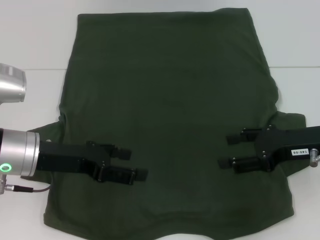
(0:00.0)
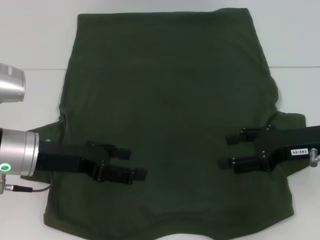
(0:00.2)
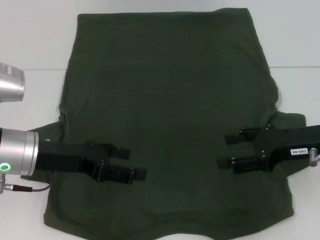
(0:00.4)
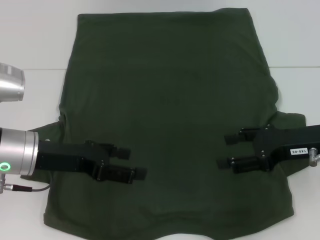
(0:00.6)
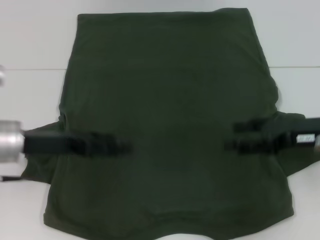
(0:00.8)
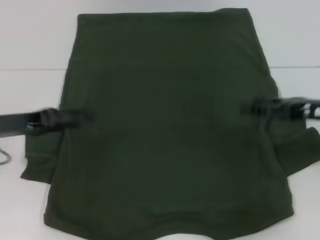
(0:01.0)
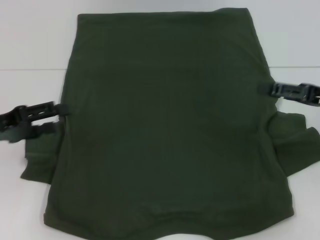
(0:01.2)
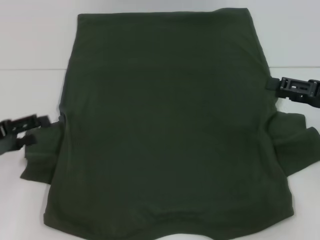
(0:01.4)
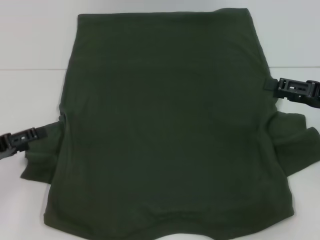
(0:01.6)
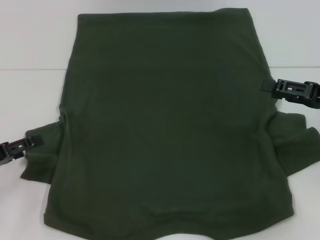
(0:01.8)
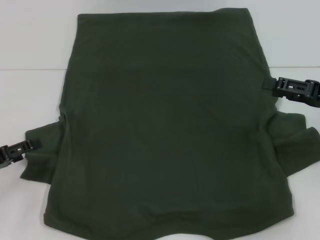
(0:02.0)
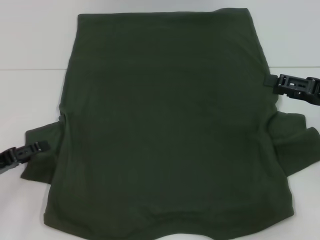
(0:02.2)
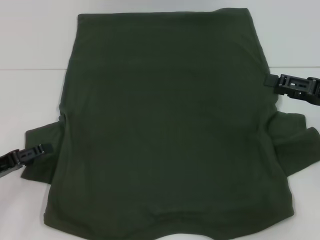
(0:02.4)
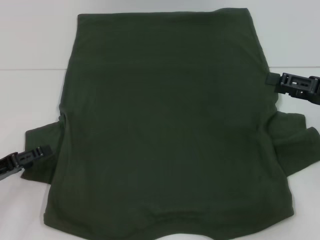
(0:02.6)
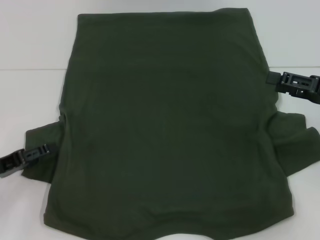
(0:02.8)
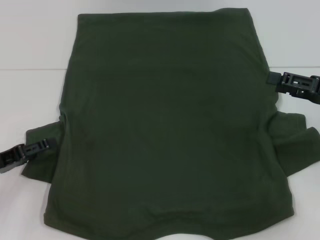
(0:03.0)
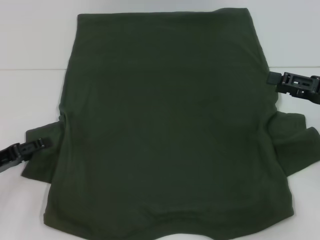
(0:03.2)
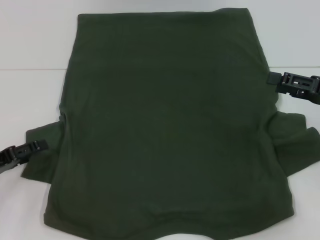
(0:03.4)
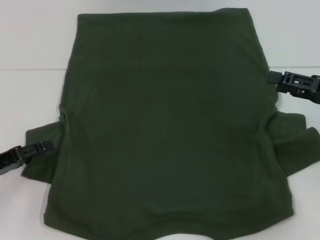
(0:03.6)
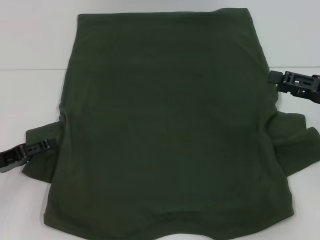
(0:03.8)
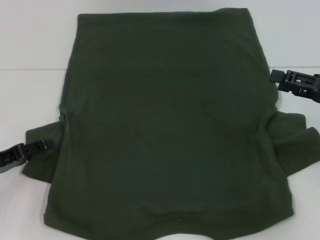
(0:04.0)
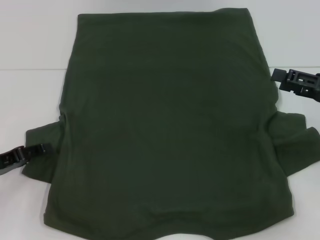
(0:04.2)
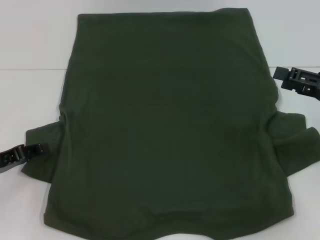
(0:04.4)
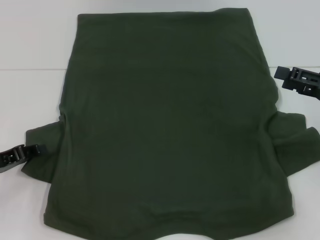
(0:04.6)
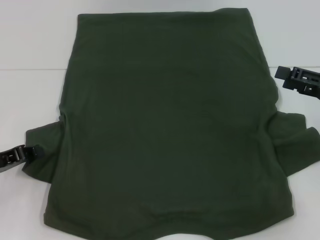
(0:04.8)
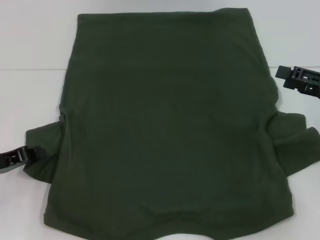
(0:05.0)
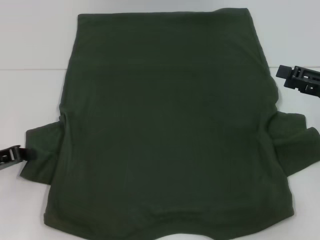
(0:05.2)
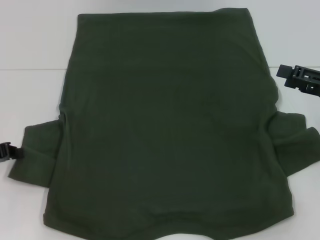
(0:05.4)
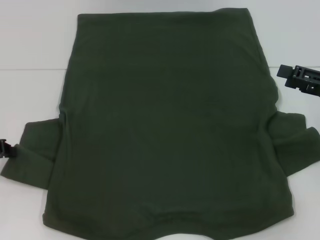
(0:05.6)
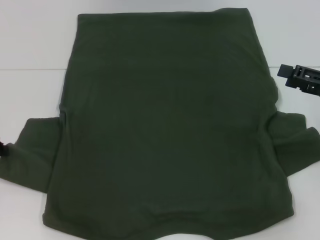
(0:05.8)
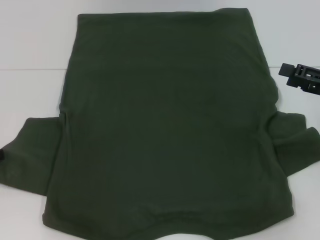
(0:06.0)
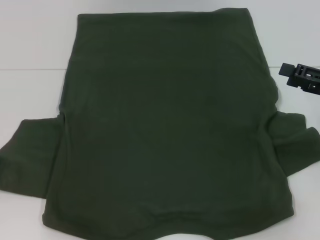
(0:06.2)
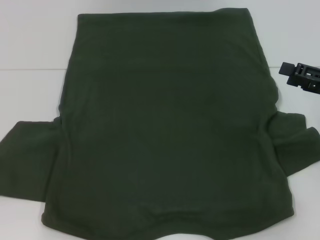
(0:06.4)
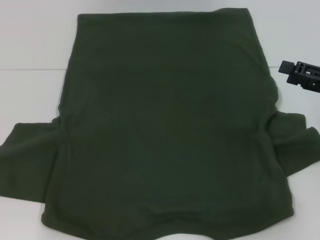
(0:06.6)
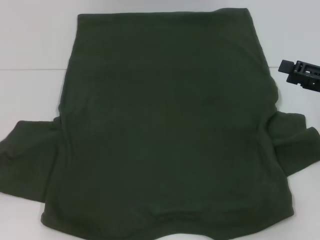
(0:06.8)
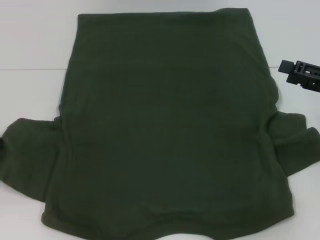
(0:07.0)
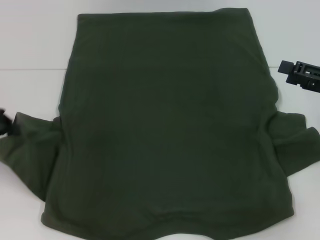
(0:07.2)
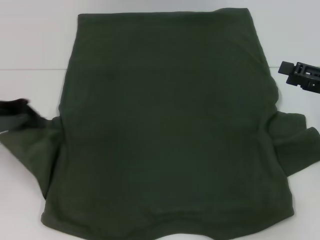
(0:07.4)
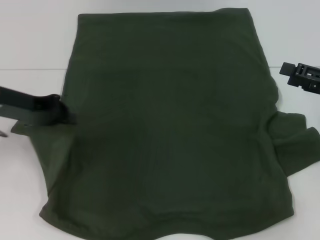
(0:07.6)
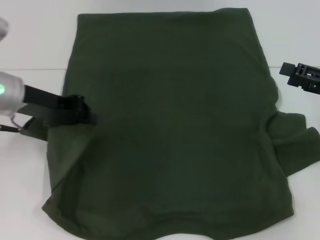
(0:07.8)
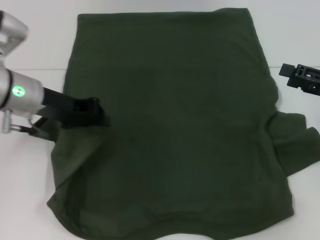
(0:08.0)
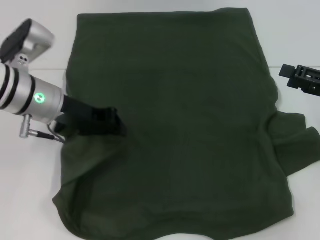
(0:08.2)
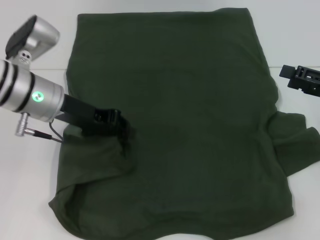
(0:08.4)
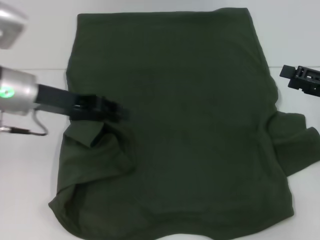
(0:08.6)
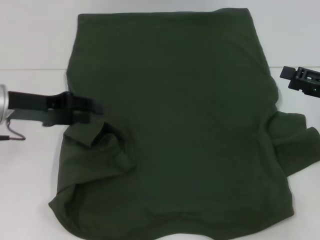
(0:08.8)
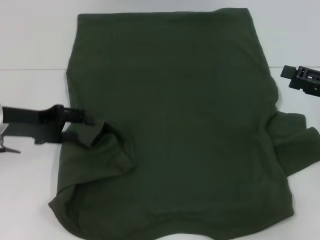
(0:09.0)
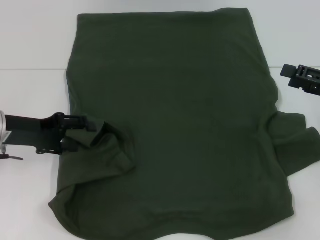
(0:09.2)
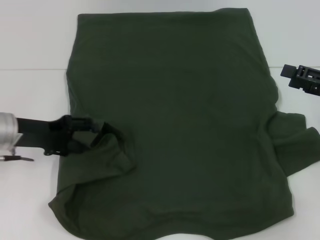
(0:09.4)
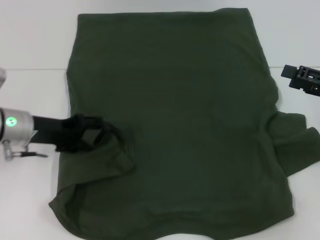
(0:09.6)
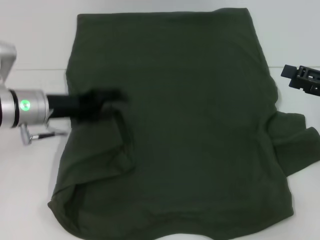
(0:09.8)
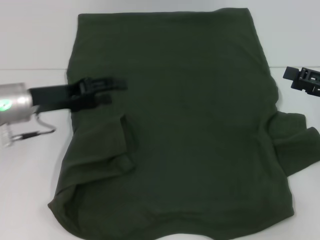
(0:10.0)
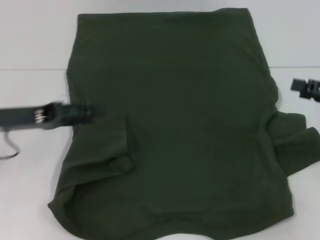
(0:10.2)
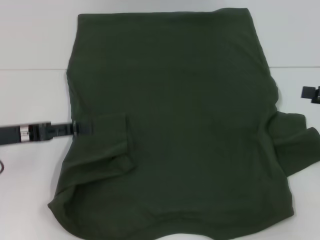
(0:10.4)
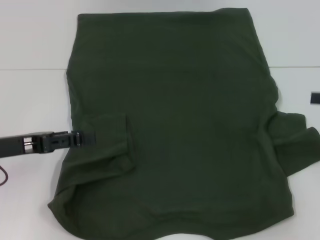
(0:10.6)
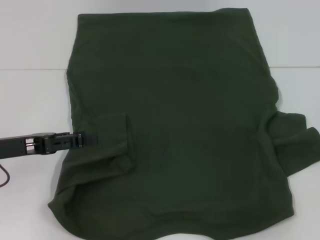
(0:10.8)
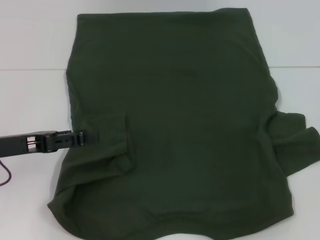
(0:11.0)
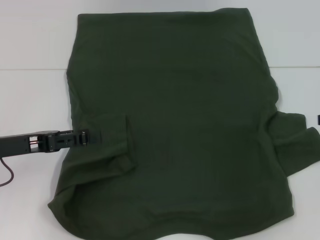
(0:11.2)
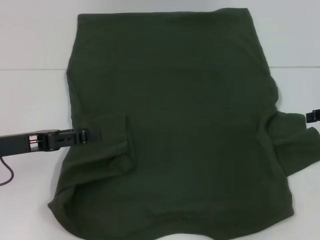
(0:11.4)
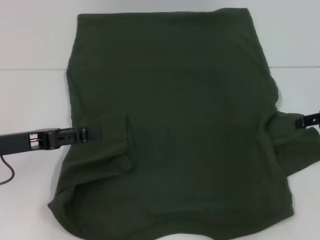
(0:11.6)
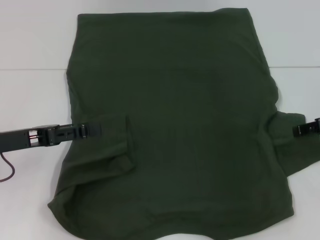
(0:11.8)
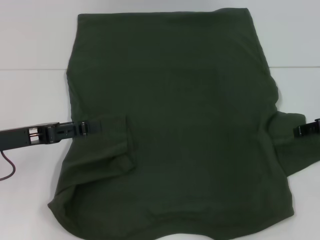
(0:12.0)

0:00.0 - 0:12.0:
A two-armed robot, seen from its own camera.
Step, 0:00.0 - 0:09.8: Fold the bottom left sleeve with your left hand.
0:00.0 - 0:01.6: The left gripper heads to the left, covering some 15 cm. The right gripper is displaced to the right by about 5 cm.
0:01.6 - 0:03.0: The grippers stay close to where they were, moving slightly.
0:03.0 - 0:04.4: Both grippers stay put.
0:04.4 - 0:06.0: The left gripper moves upward, roughly 5 cm, and closes.
0:06.0 - 0:07.6: The left gripper heads to the right and upward, covering some 10 cm.
0:07.6 - 0:09.0: The left gripper travels downward by about 5 cm, goes to the right and returns, roughly 5 cm each way, and opens up.
0:09.0 - 0:10.4: The left gripper changes place by roughly 5 cm.
0:10.4 - 0:12.0: The right gripper changes place by approximately 5 cm.

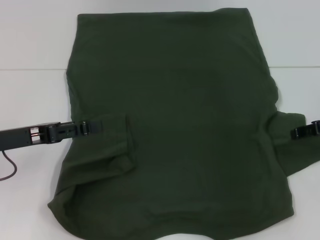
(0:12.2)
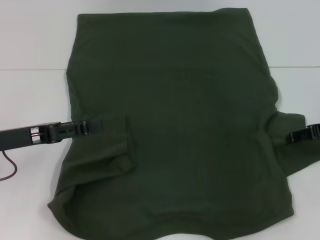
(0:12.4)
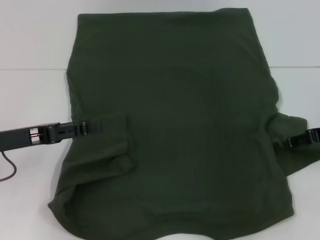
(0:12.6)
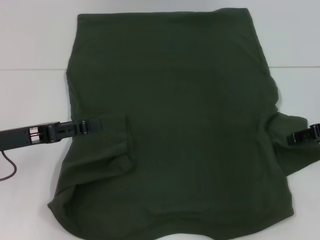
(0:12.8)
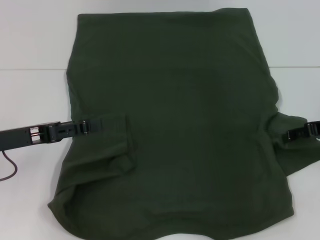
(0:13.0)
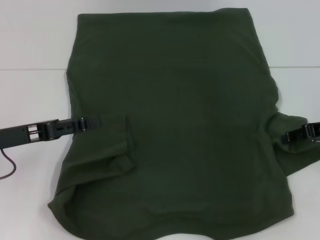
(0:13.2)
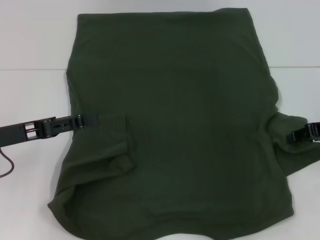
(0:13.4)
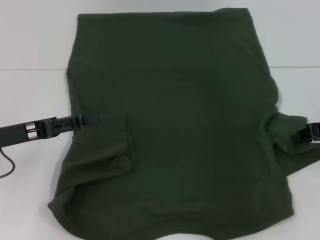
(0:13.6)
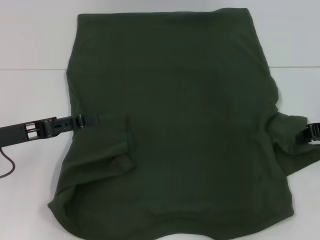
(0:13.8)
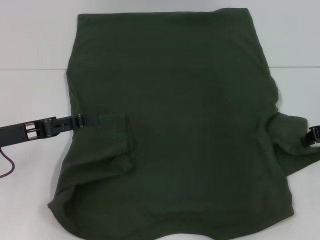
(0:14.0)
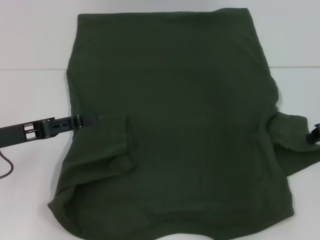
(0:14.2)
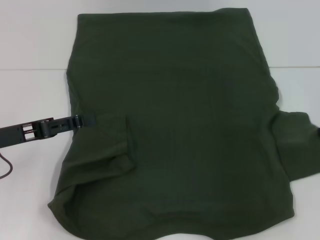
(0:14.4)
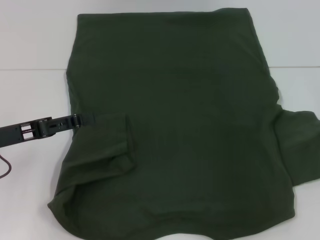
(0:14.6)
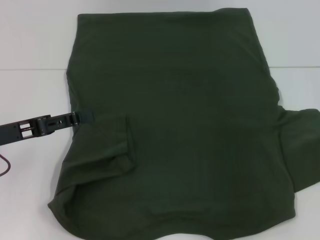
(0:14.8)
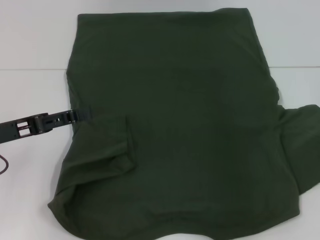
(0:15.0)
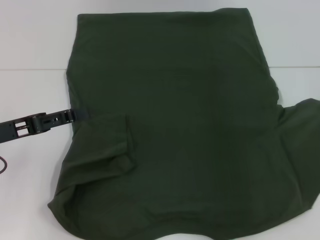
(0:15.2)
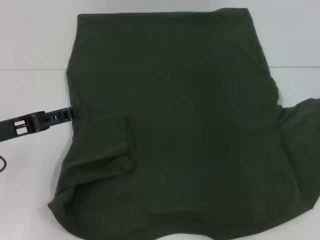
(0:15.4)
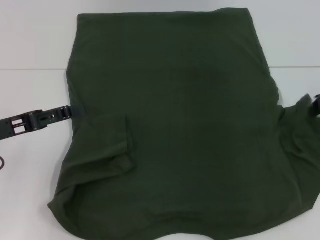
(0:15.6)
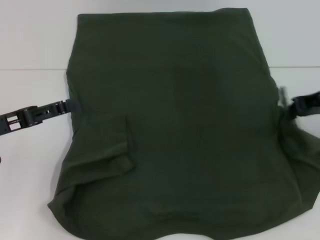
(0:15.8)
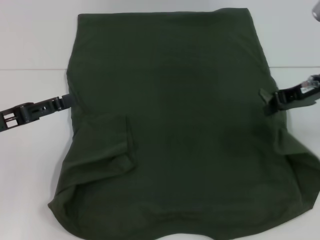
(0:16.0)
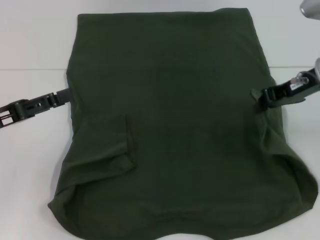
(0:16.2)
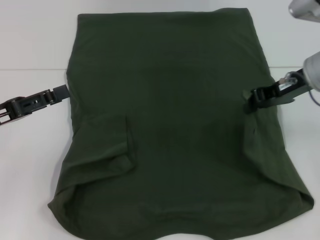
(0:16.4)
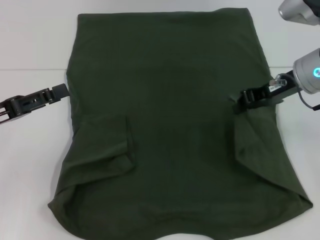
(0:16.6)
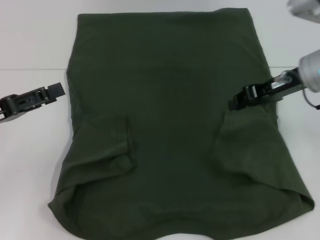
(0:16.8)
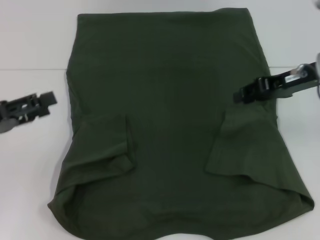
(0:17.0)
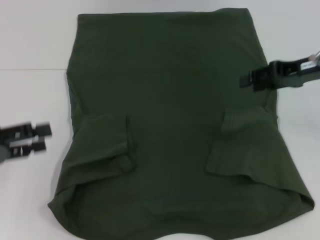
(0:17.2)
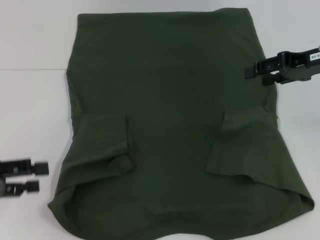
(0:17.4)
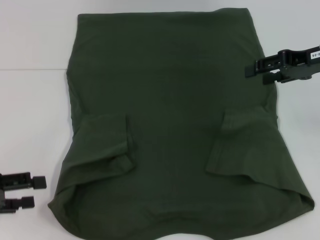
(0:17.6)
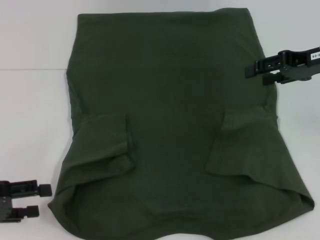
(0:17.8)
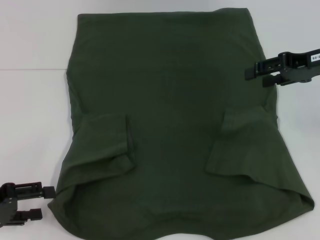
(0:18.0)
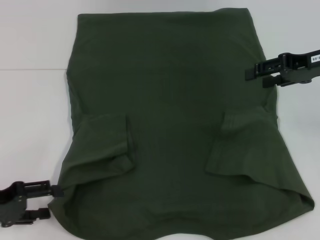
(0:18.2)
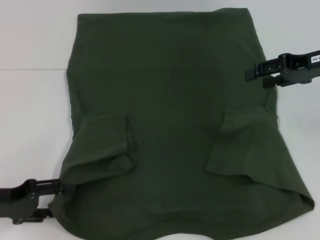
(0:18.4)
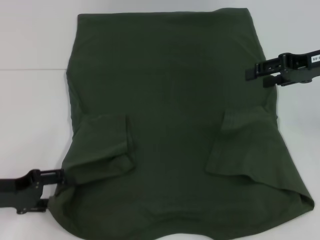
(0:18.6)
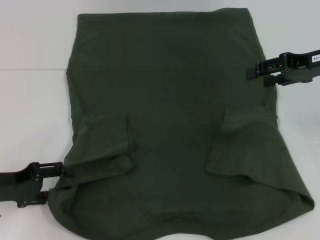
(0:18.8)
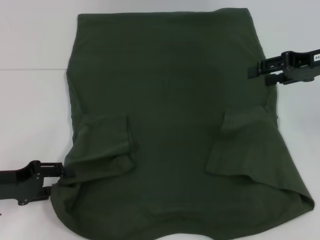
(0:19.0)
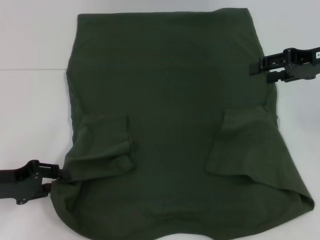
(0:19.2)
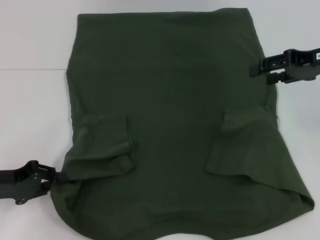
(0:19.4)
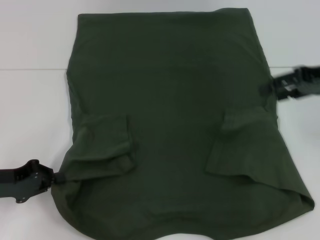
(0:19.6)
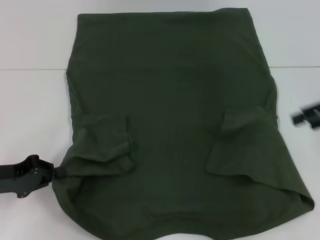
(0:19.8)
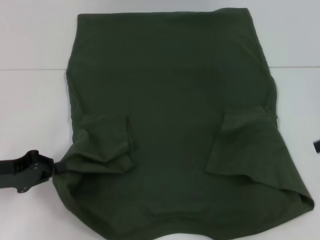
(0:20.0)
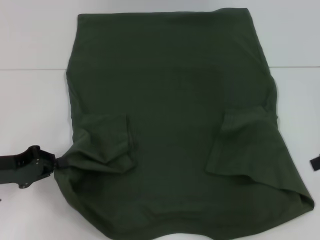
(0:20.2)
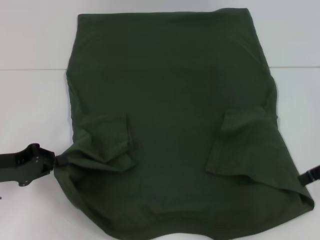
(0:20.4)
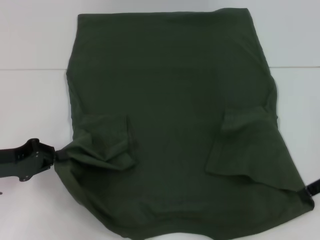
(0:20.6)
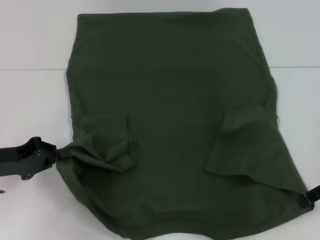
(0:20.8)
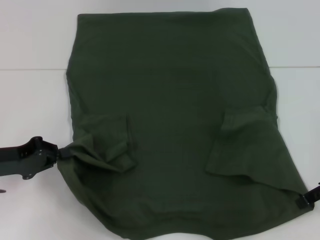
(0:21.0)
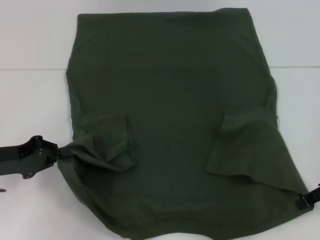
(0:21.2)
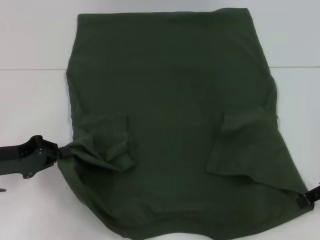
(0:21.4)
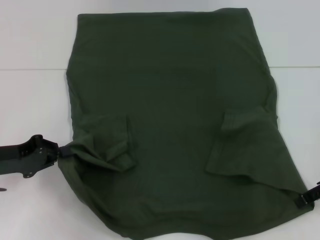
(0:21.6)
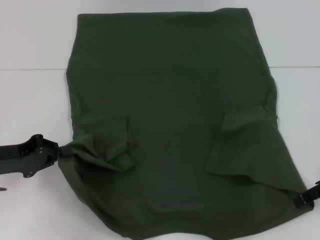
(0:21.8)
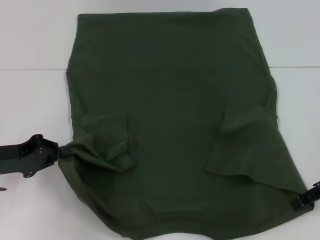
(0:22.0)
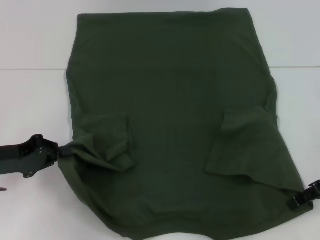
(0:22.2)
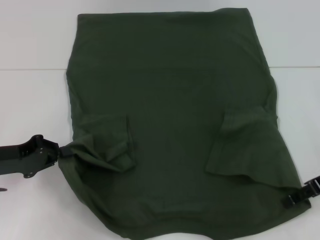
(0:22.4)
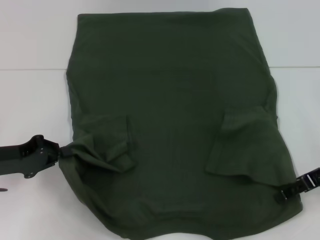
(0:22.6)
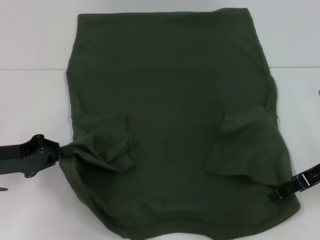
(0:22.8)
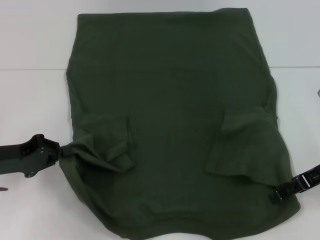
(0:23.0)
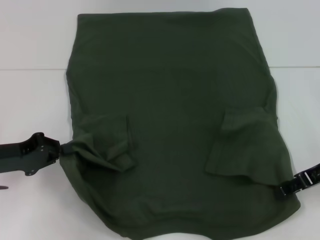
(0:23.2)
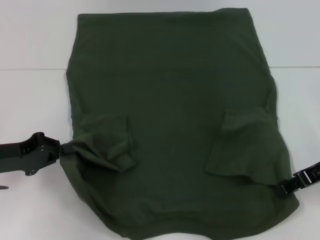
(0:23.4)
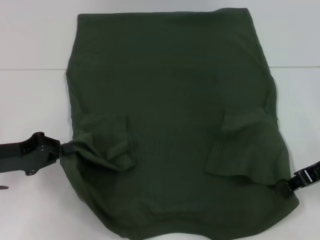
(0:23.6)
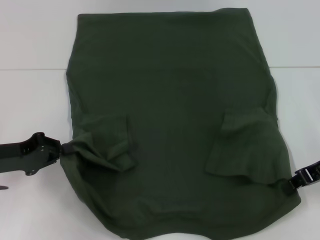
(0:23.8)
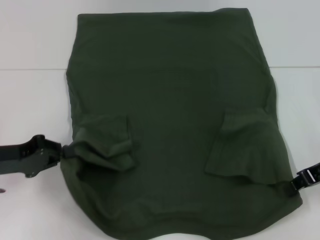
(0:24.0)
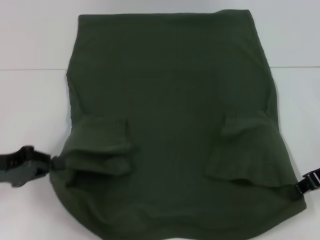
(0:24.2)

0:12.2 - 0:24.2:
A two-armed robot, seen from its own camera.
Step, 0:12.2 - 0:16.8: Fold the bottom right sleeve with your right hand.
Step, 0:17.0 - 0:19.4: Grab the bottom left corner with your left hand.
Step, 0:19.6 - 0:24.0: Grab the bottom right corner with your right hand.
0:13.8 - 0:15.2: The right gripper changes place by approximately 5 cm.
0:15.2 - 0:16.6: The right gripper heads to the left, covering roughly 15 cm.
0:16.6 - 0:18.2: The right gripper goes some 5 cm to the right, and opens its fingers. Meanwhile the left gripper is displaced downward by some 5 cm.
0:18.2 - 0:19.8: The right gripper travels to the right by about 5 cm; the left gripper closes up.
0:19.8 - 0:21.2: The right gripper travels downward by some 5 cm.
0:21.2 - 0:22.6: The grippers move only a little.
0:22.6 - 0:24.2: The right gripper closes its fingers.
